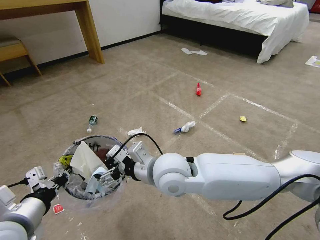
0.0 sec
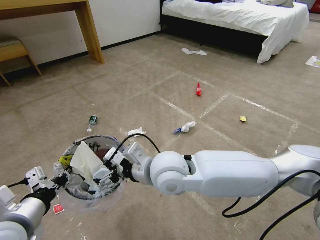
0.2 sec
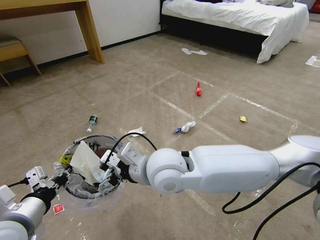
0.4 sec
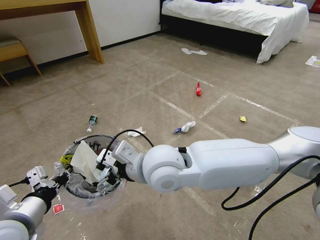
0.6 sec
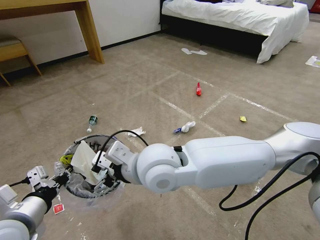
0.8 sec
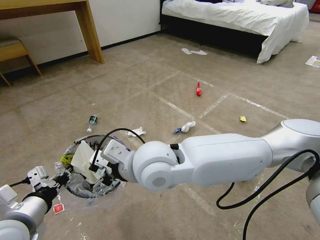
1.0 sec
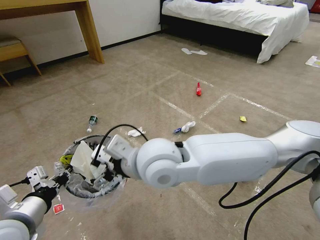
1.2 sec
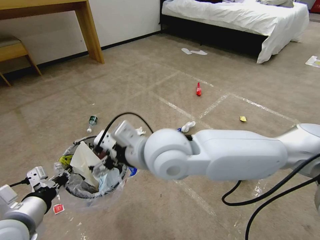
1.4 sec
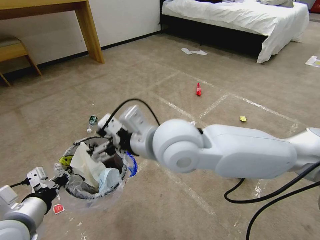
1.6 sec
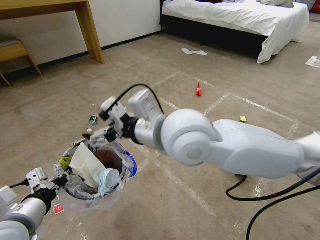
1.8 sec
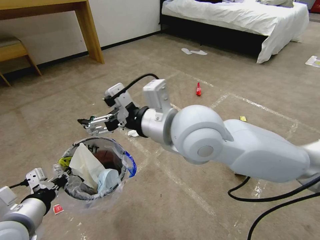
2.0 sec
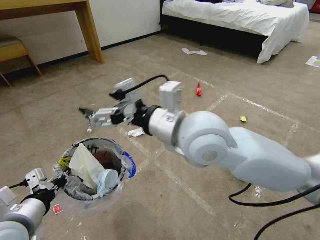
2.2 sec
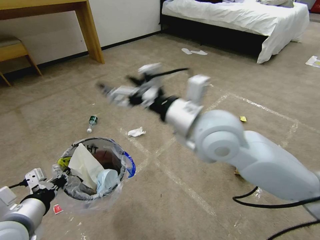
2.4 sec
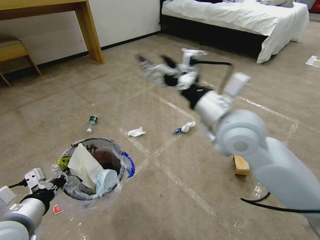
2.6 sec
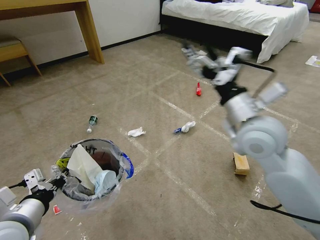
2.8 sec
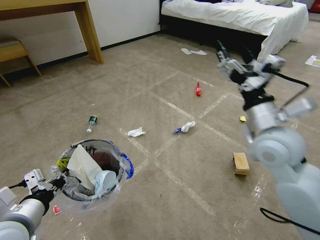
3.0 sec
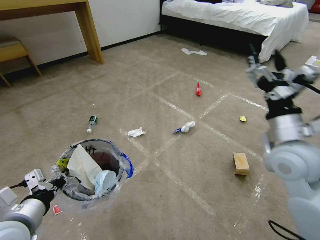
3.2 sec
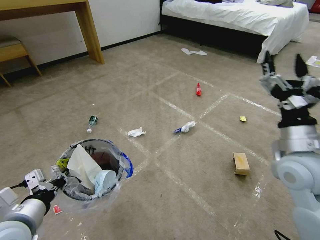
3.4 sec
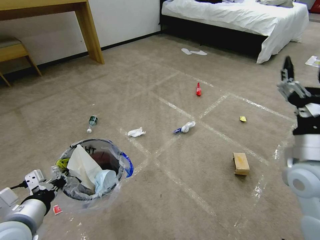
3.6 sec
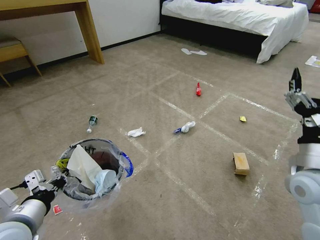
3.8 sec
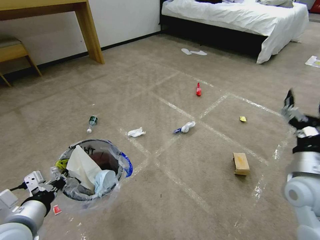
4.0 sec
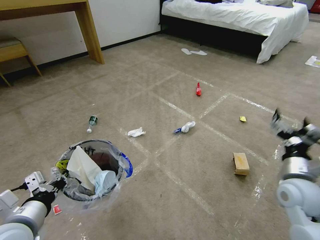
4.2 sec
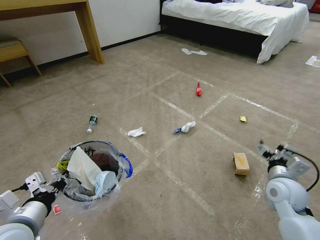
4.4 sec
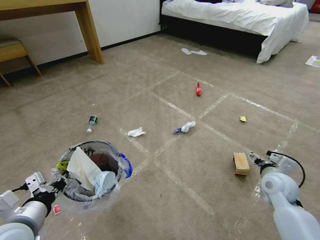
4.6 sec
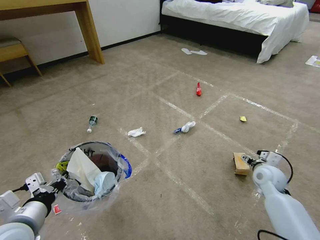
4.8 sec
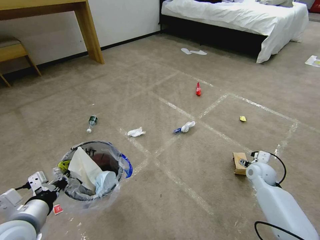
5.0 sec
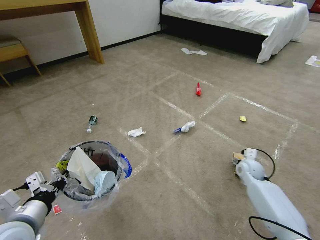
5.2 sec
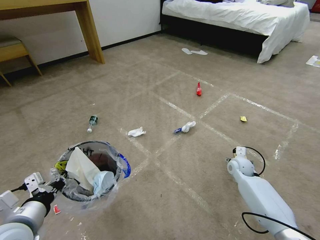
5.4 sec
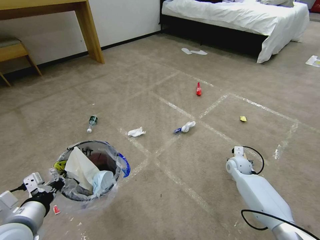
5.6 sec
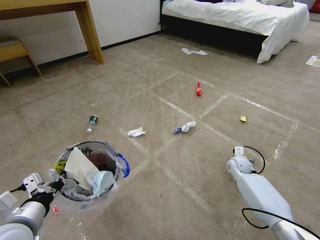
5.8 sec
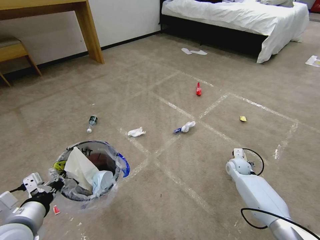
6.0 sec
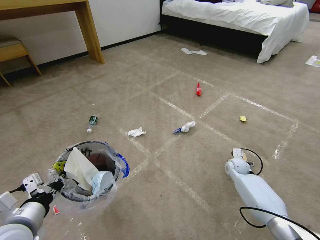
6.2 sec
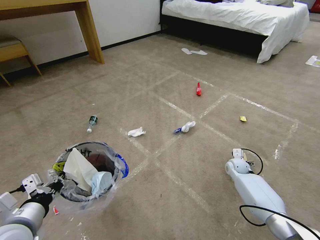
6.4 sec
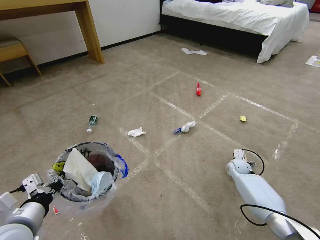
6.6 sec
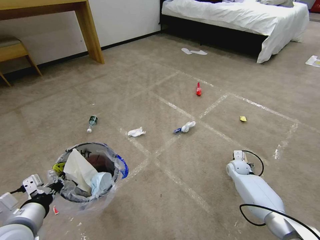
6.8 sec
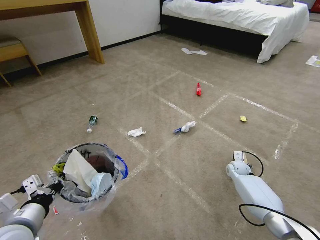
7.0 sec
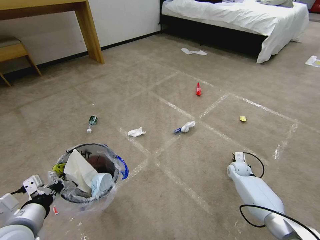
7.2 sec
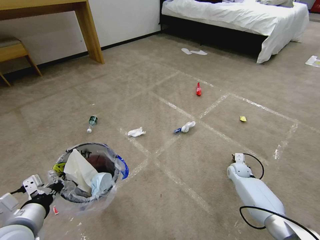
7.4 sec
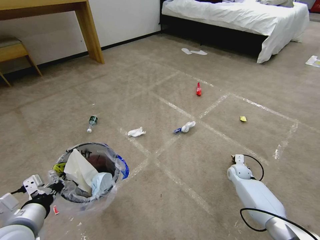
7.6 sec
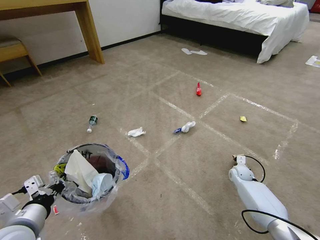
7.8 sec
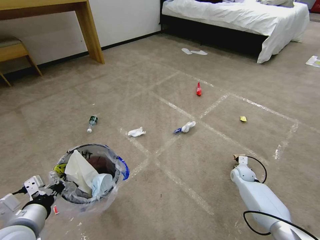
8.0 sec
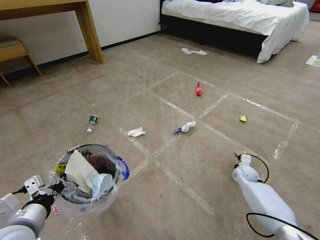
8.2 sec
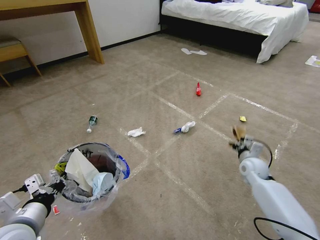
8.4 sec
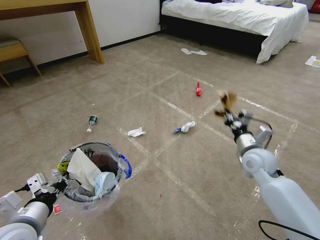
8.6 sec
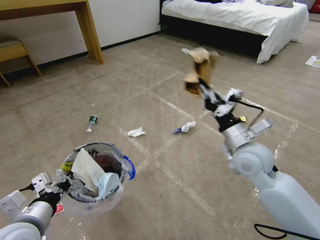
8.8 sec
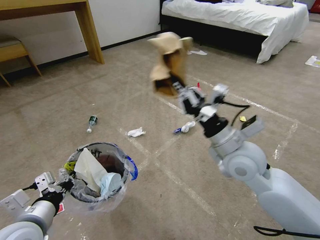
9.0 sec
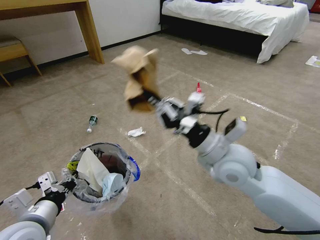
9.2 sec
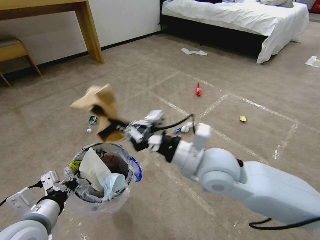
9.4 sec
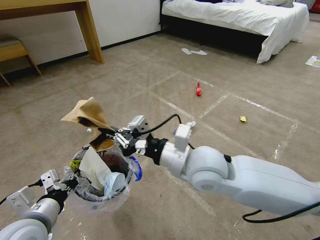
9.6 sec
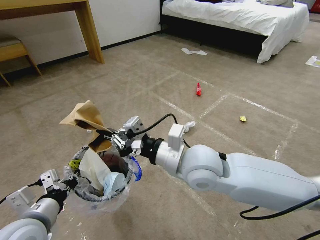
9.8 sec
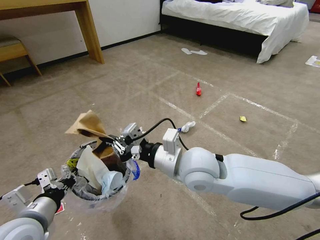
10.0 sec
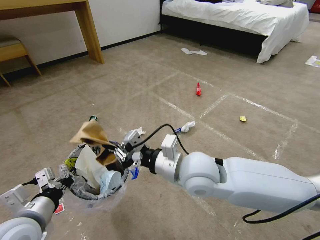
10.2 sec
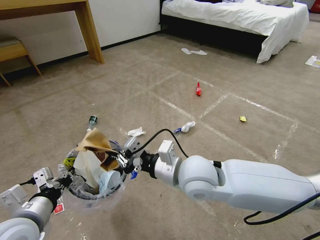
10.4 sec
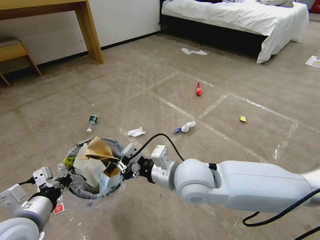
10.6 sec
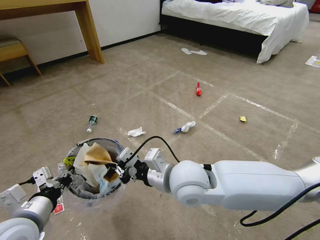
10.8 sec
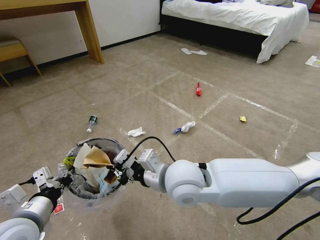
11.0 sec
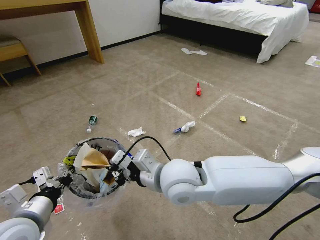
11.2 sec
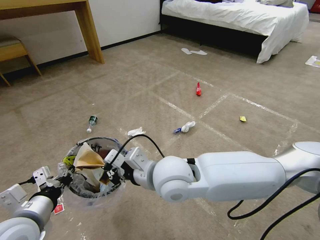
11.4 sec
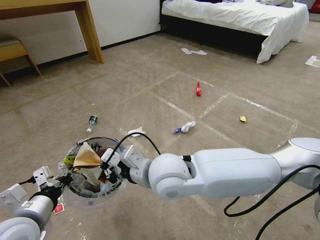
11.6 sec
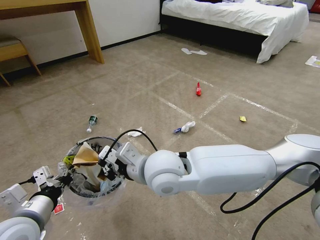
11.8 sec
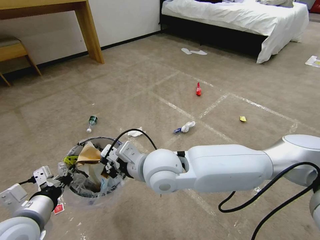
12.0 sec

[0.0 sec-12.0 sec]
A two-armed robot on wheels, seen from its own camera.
Task of the whole recording: Pick up the trash bin and place the garbage on the floor into it.
0.0 sec to 1.6 sec: The right gripper heads upward, covering approximately 10 cm.
1.6 sec to 3.0 sec: The right gripper shifts approximately 25 cm to the right.
3.0 sec to 4.4 sec: The right gripper is displaced downward and to the right by some 25 cm.
4.4 sec to 6.0 sec: The right gripper heads forward and downward, covering roughly 20 cm.
6.0 sec to 7.6 sec: The right gripper closes.
7.6 sec to 9.0 sec: The right gripper shifts some 40 cm upward, to the left and backward.
9.0 sec to 10.4 sec: The right gripper is displaced to the left by approximately 10 cm.
10.4 sec to 12.0 sec: The right gripper is displaced to the left by some 10 cm.

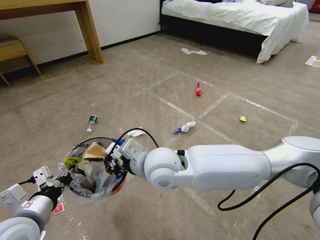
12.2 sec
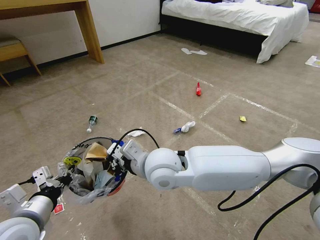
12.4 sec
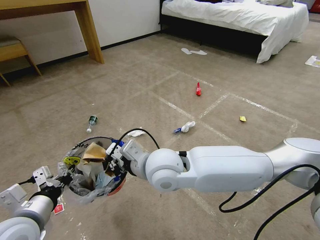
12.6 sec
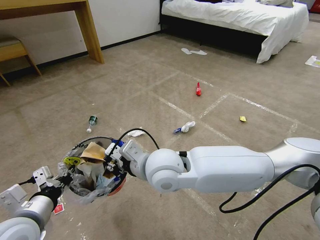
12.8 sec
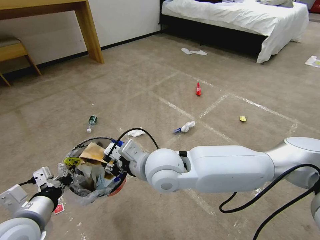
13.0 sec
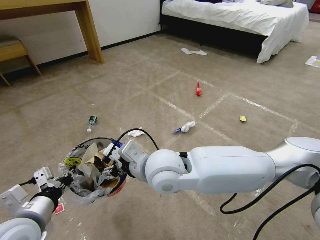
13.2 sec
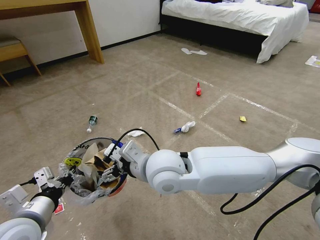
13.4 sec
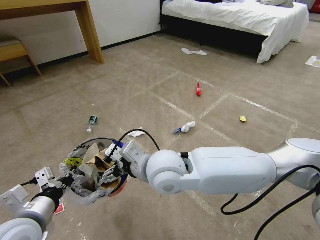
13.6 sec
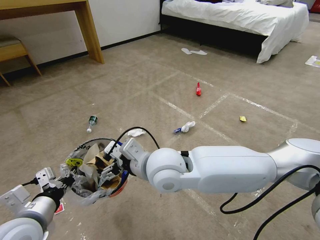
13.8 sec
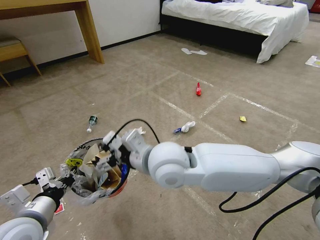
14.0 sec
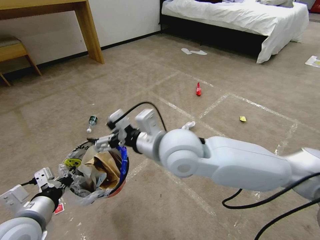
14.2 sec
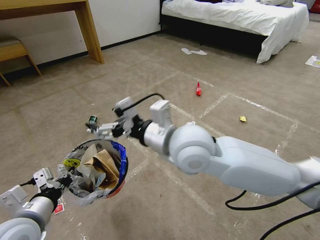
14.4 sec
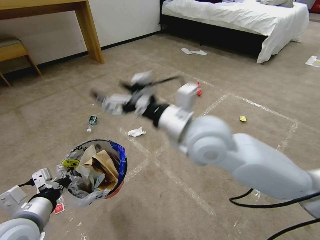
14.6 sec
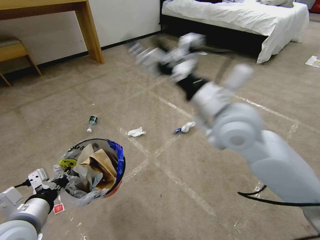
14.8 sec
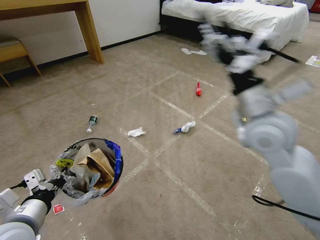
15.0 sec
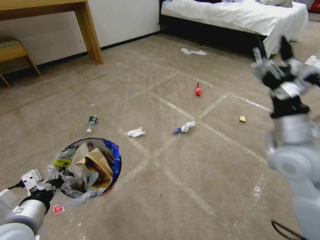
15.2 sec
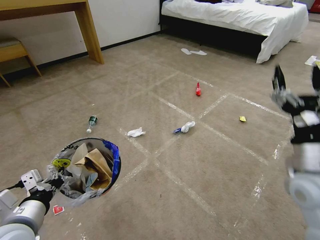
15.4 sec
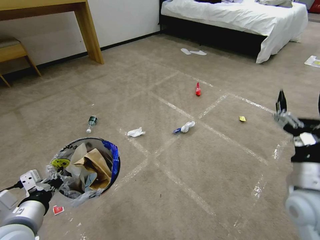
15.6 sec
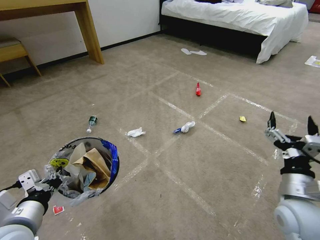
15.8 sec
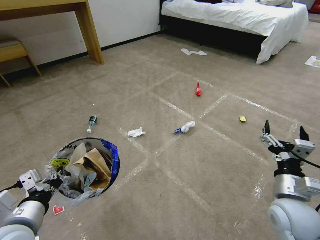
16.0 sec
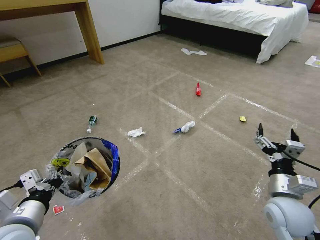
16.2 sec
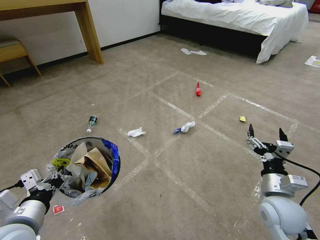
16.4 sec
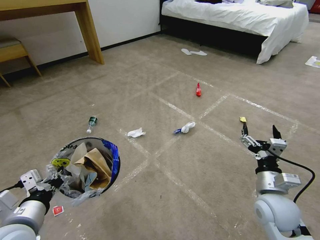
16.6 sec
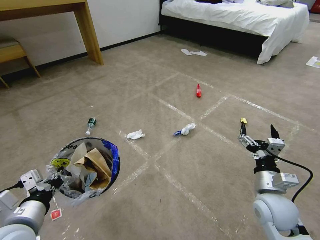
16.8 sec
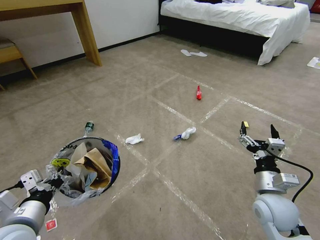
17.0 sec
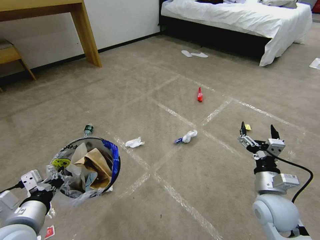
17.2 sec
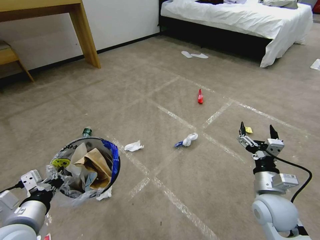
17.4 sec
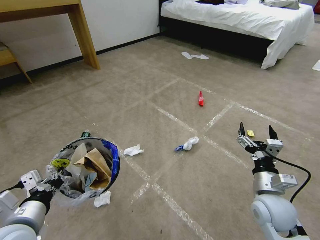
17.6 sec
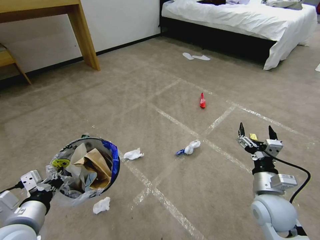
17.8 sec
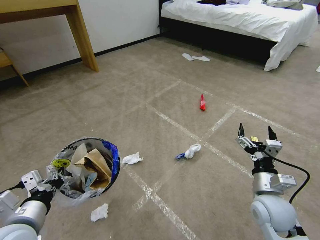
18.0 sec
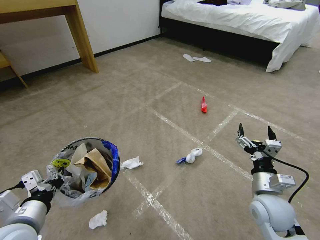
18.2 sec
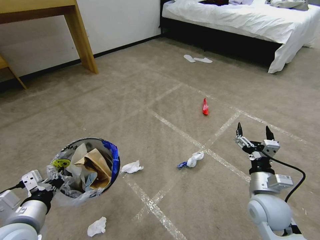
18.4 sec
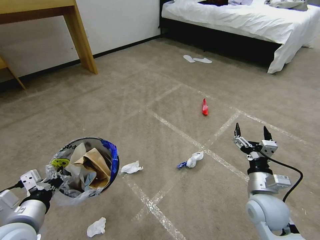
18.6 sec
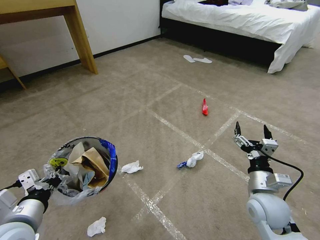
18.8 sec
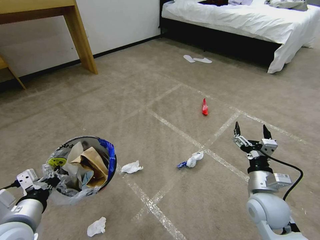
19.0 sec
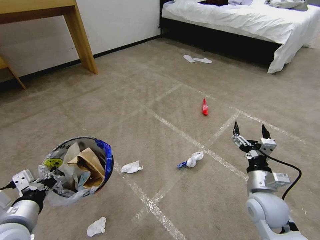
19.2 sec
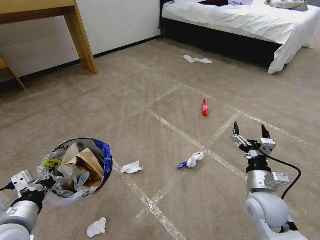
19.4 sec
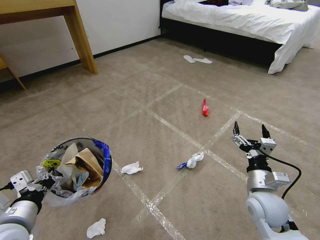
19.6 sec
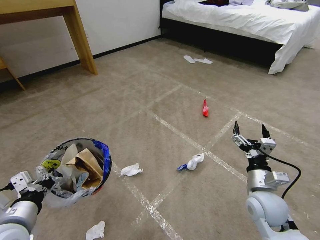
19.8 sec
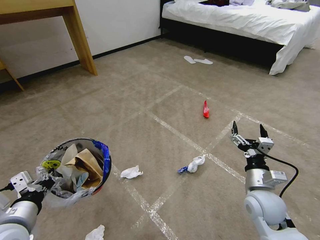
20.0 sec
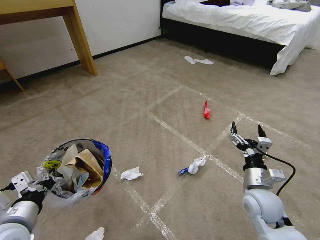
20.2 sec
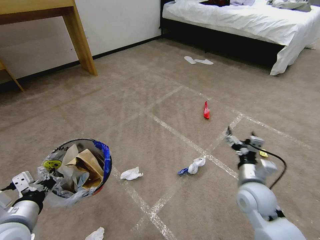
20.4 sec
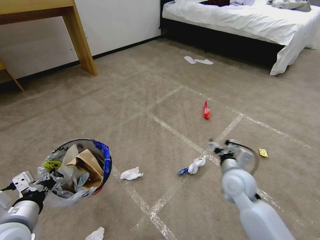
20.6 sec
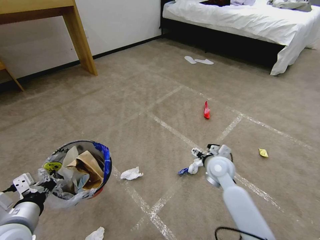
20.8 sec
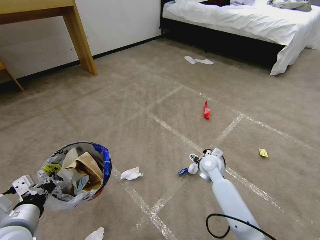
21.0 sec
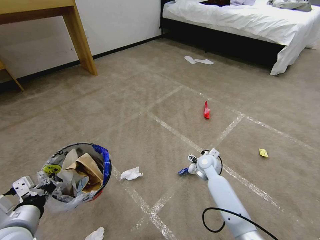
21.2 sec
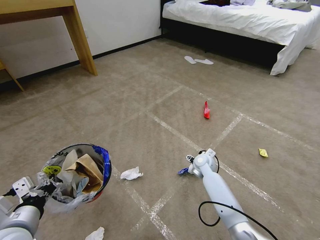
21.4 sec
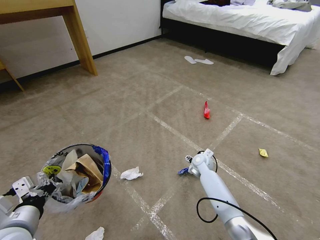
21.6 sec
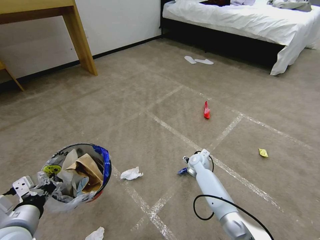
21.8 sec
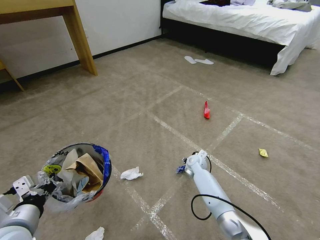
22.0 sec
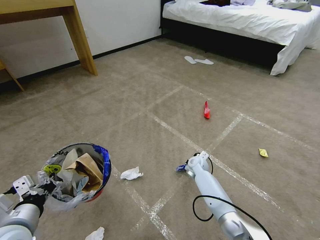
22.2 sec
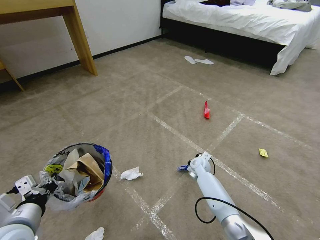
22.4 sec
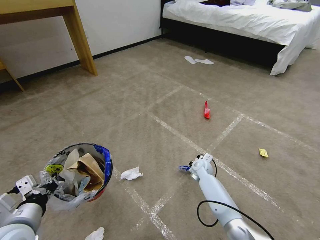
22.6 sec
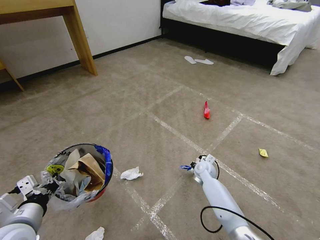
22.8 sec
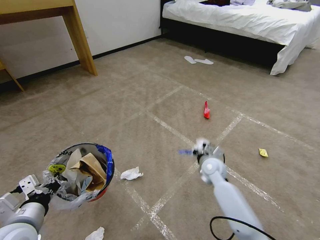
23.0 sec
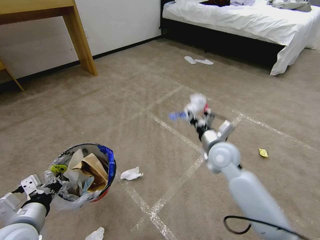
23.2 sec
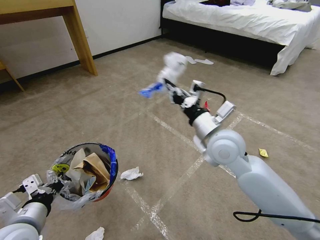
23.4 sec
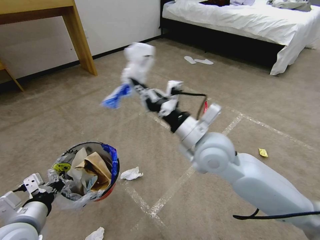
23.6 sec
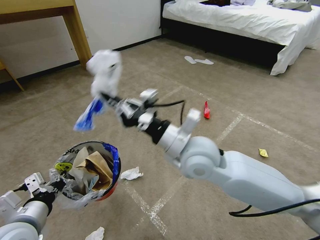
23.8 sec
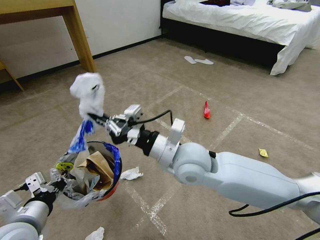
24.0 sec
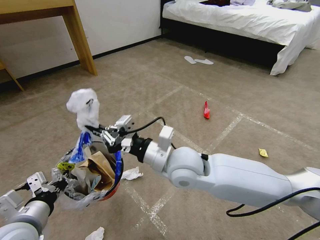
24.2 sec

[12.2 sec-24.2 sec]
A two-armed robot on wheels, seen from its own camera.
Task of the whole recording: Pick up the trash bin and place the garbage on the floor into it.
12.2 sec to 13.8 sec: The right gripper opens up.
13.8 sec to 15.2 sec: The right gripper shifts roughly 30 cm to the right.
15.2 sec to 16.6 sec: The right gripper is displaced downward by approximately 20 cm.
18.2 sec to 19.8 sec: The grippers stay close to where they were, moving slightly.
19.8 sec to 21.2 sec: The right gripper heads forward, to the left and downward, covering approximately 25 cm.
21.2 sec to 22.6 sec: The right gripper heads downward, covering about 5 cm, and closes its fingers.
22.6 sec to 24.2 sec: The right gripper heads upward, backward and to the left, covering some 35 cm.
